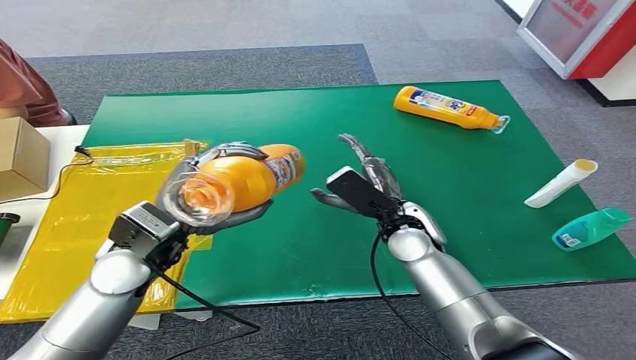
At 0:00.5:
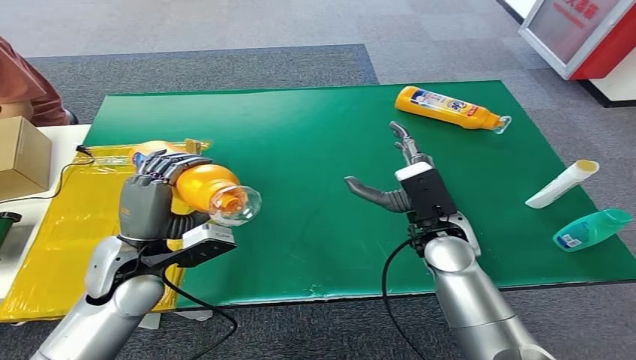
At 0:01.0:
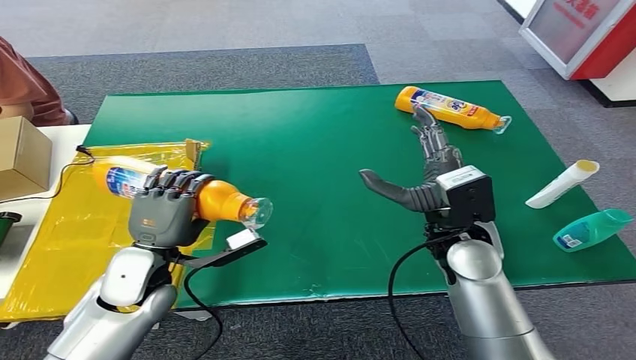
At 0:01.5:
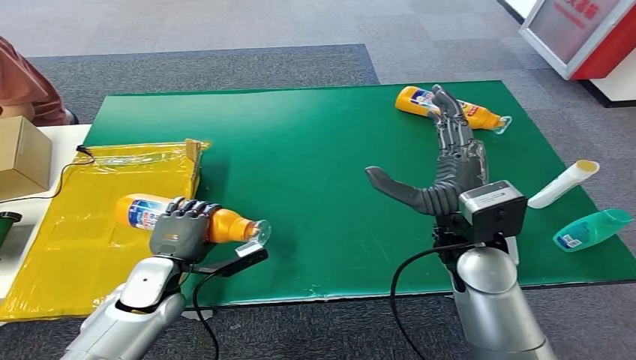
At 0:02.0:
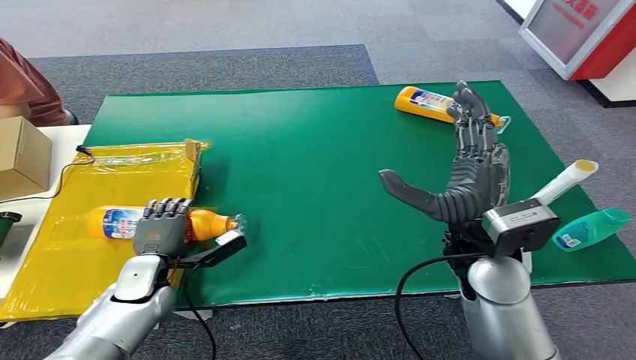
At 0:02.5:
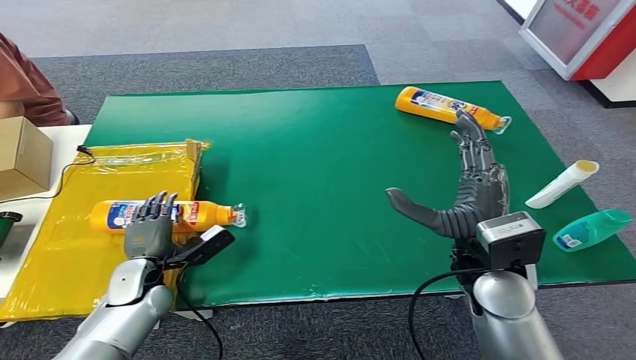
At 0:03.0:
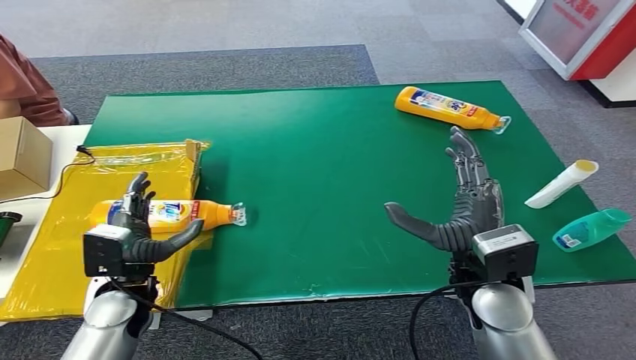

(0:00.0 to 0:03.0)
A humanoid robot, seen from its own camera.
Step, 0:00.0 - 0:03.0: Turn the bottle to the front side.
0:01.5 - 0:03.0: The right hand ends up roughly 5 cm from where it was.
